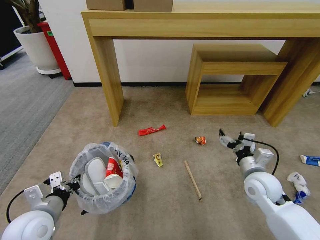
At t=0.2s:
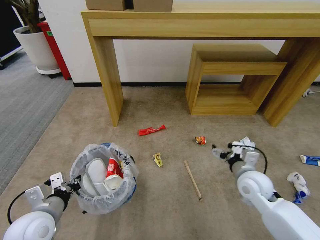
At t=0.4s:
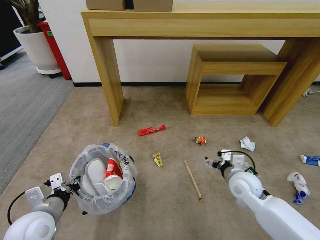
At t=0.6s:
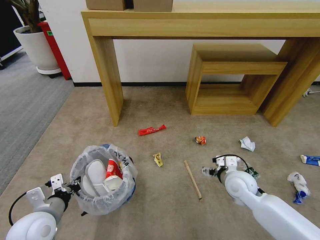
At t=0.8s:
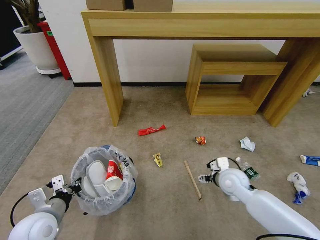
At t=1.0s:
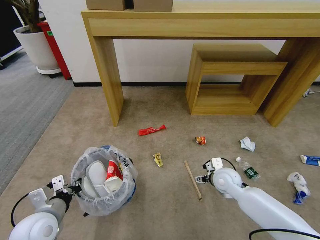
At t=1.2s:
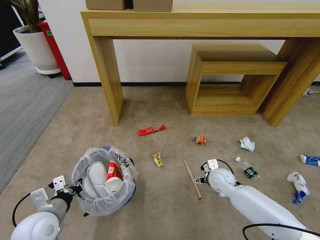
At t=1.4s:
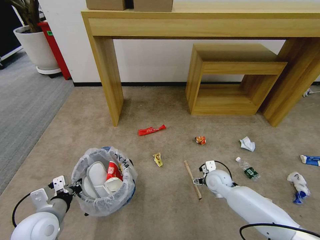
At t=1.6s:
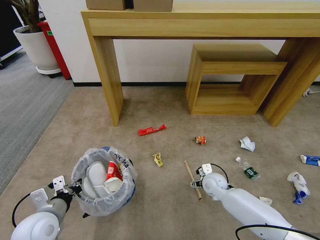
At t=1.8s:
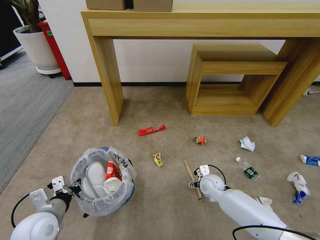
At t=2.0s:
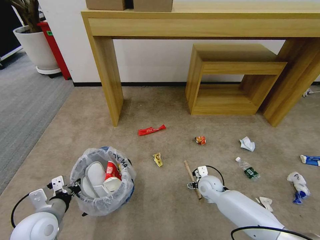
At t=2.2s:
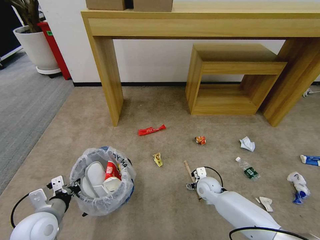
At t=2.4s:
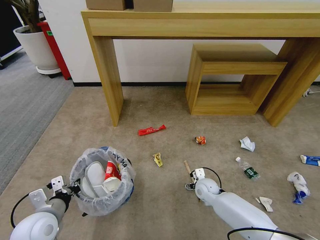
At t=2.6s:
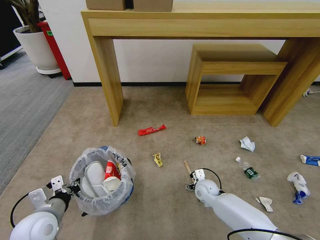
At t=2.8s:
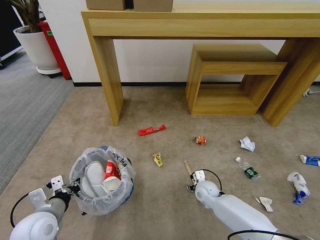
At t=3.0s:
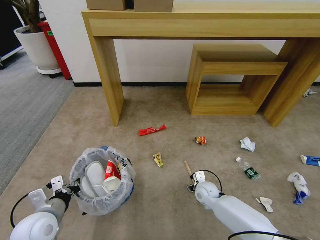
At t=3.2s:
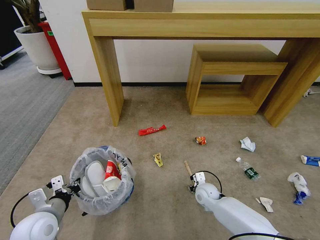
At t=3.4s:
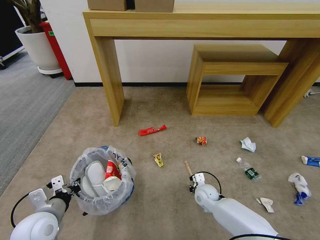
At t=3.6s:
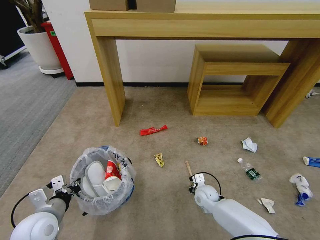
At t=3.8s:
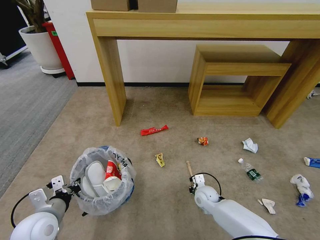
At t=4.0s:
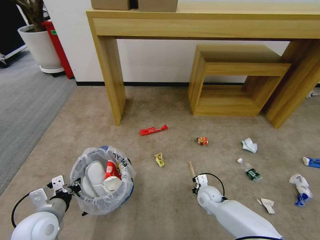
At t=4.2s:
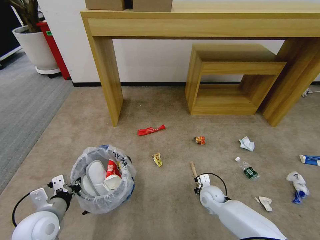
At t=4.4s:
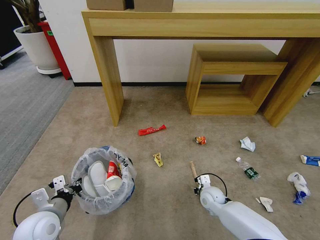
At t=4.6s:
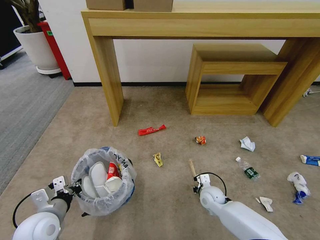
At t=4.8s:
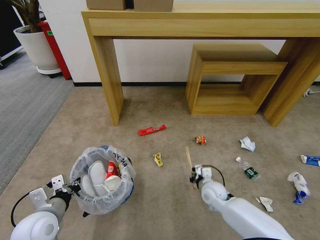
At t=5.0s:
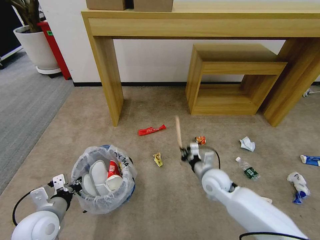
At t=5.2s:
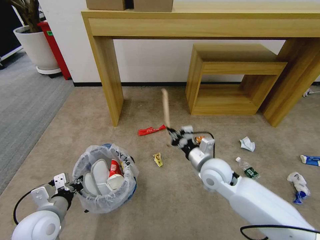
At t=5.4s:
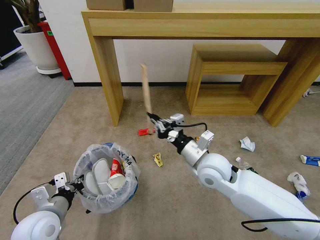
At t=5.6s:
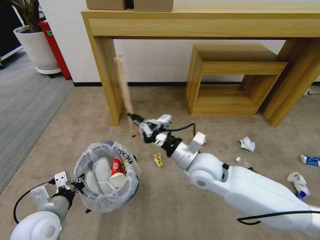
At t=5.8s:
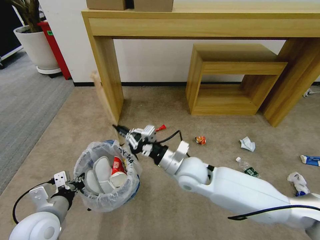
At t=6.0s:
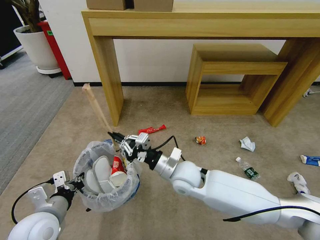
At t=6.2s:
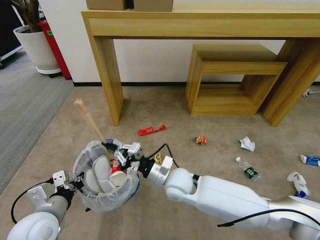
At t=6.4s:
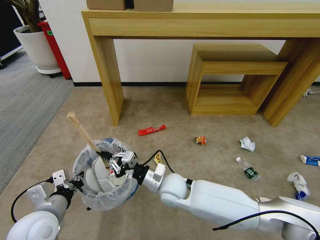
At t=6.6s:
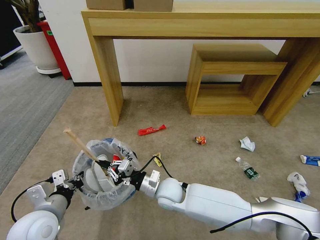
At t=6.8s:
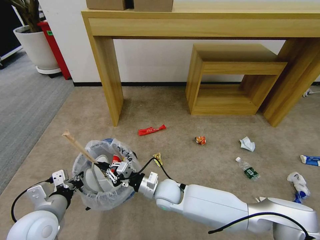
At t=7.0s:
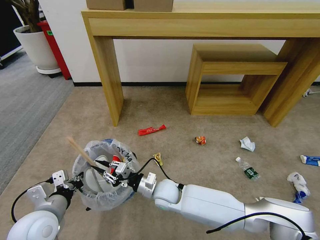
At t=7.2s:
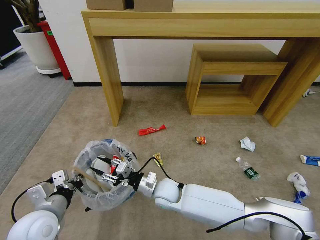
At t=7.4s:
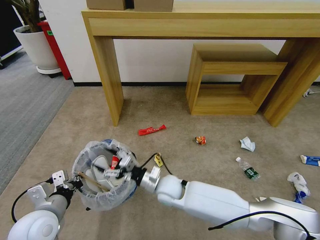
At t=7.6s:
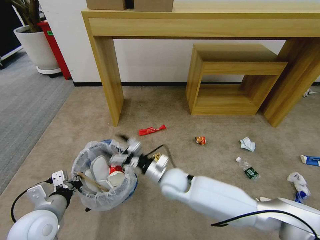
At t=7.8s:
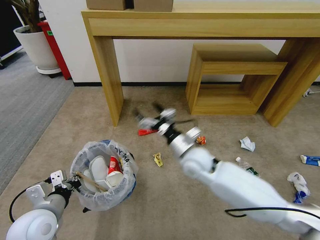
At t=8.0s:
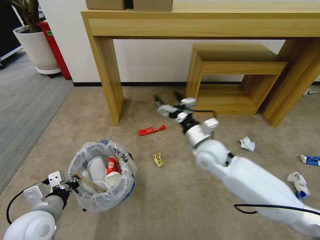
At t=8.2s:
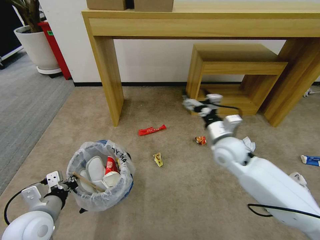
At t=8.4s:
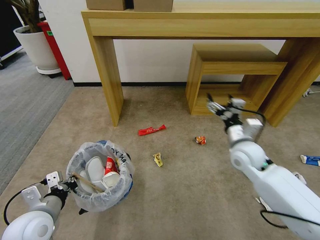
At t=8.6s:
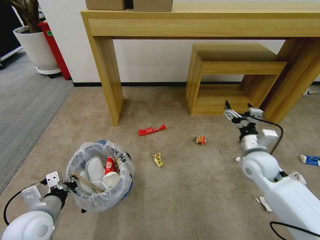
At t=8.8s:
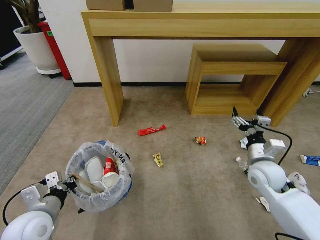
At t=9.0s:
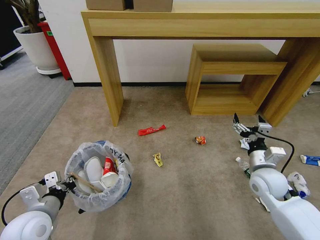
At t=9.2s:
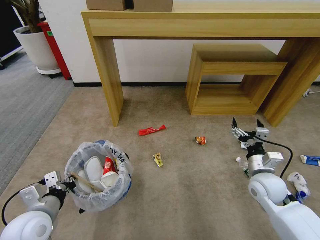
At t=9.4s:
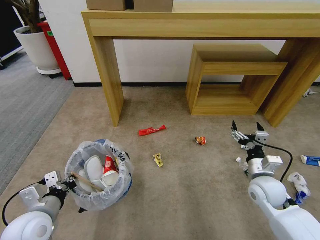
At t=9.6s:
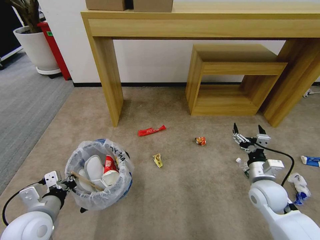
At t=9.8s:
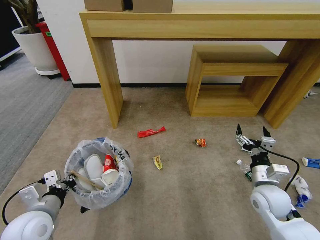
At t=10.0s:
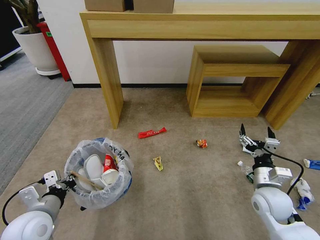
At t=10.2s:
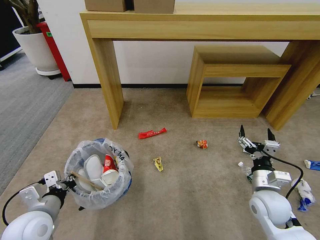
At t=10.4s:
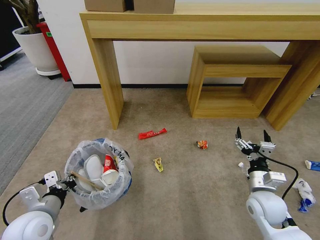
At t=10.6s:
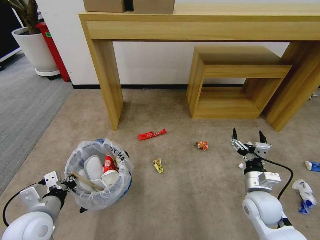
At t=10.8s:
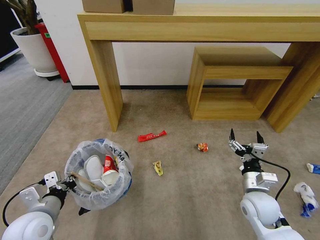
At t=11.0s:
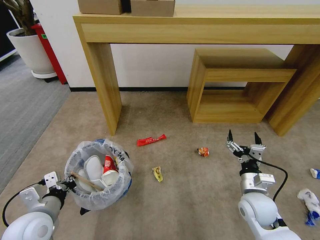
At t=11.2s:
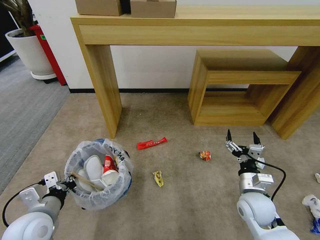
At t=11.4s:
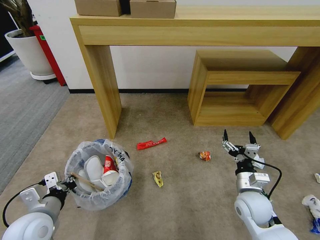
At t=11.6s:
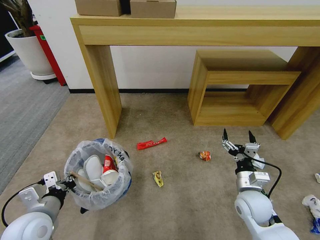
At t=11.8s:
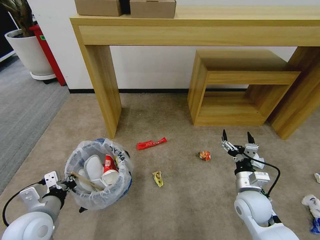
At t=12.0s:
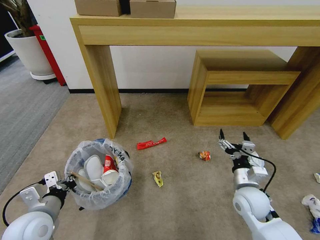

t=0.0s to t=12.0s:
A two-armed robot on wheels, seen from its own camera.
Task of the whole recording: Pick up the trash bin and place the garbage on the floor into it.
t=0.0s to t=1.6s: The right gripper is displaced downward, to the left and forward by approximately 20 cm.
t=1.6s to t=3.0s: The right gripper travels downward by roughly 5 cm.
t=3.0s to t=4.4s: The right gripper closes up.
t=4.4s to t=6.0s: The right gripper is displaced upward and to the left by approximately 25 cm.
t=6.0s to t=7.6s: The right gripper shifts approximately 5 cm downward, and opens.
t=7.6s to t=9.0s: The right gripper goes approximately 30 cm to the right.
t=9.0s to t=10.4s: The right gripper heads backward, covering about 5 cm.

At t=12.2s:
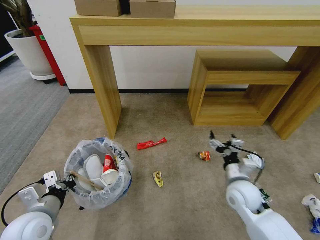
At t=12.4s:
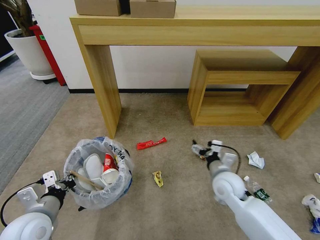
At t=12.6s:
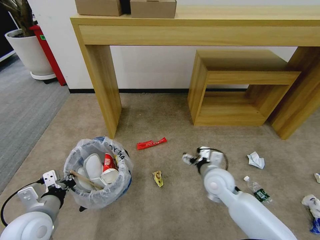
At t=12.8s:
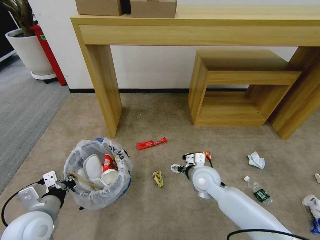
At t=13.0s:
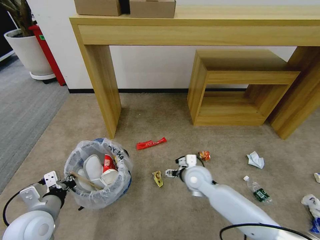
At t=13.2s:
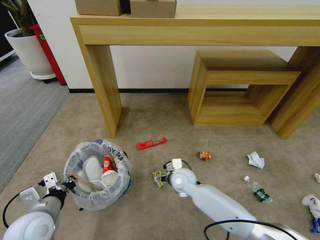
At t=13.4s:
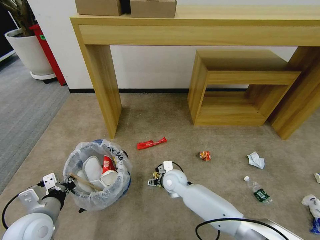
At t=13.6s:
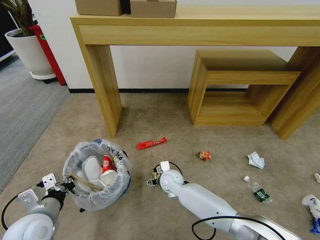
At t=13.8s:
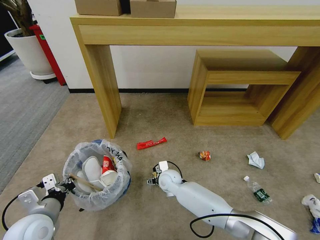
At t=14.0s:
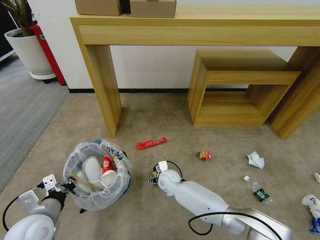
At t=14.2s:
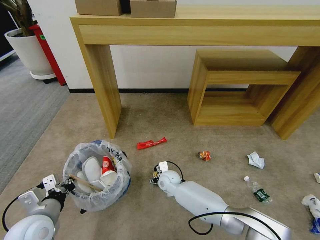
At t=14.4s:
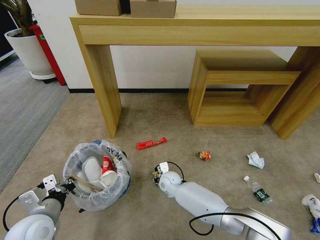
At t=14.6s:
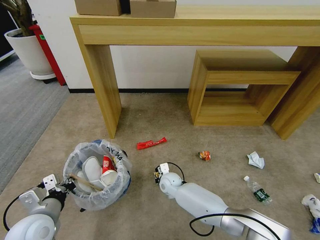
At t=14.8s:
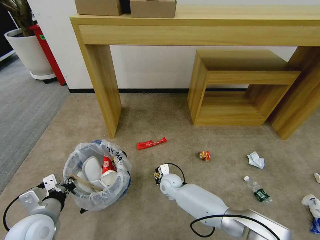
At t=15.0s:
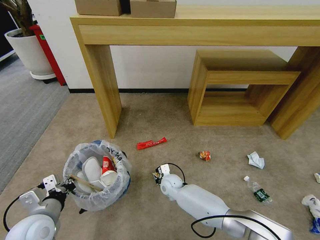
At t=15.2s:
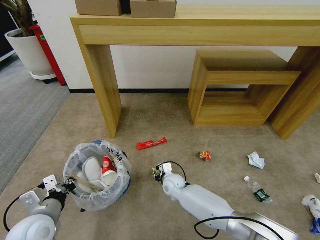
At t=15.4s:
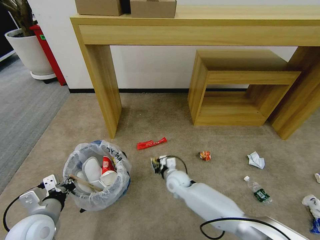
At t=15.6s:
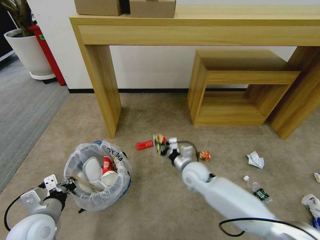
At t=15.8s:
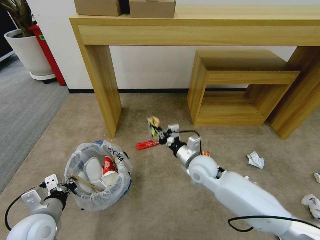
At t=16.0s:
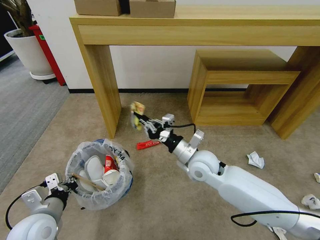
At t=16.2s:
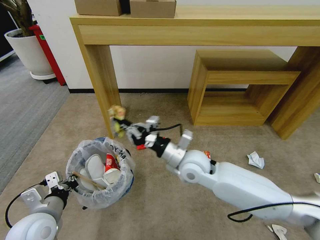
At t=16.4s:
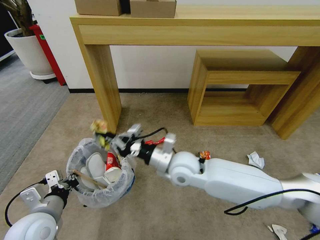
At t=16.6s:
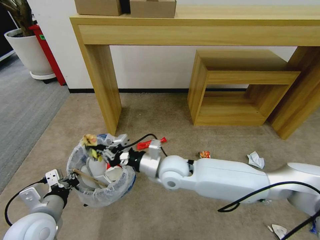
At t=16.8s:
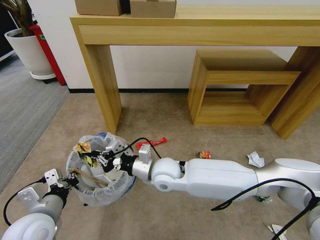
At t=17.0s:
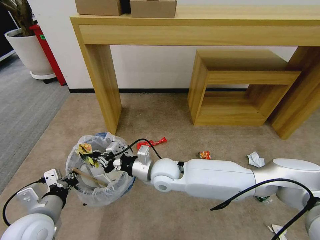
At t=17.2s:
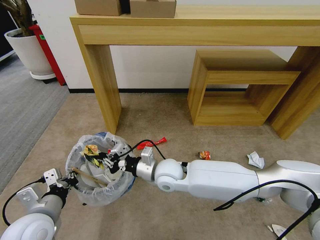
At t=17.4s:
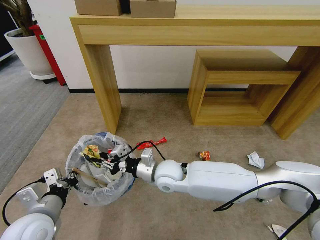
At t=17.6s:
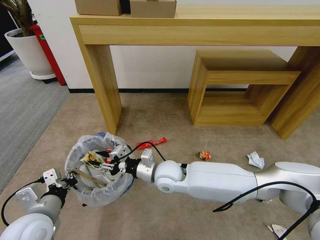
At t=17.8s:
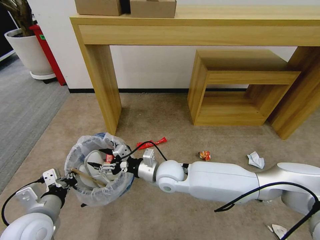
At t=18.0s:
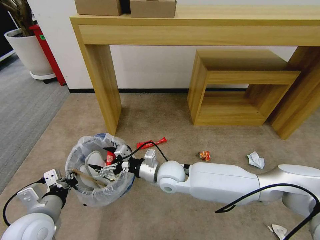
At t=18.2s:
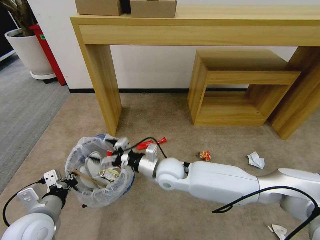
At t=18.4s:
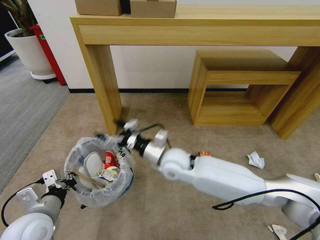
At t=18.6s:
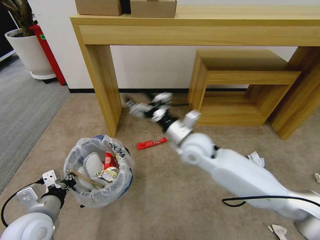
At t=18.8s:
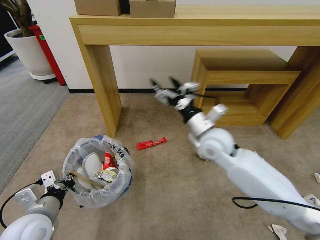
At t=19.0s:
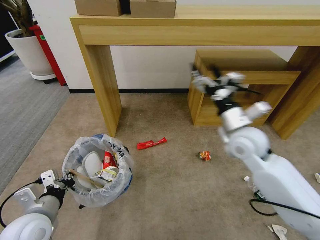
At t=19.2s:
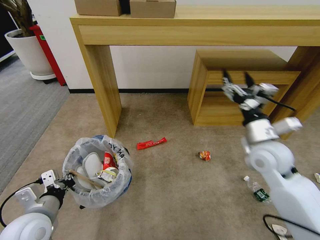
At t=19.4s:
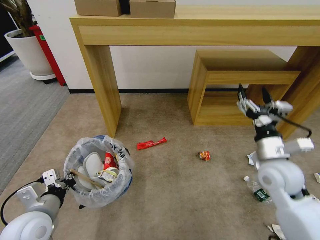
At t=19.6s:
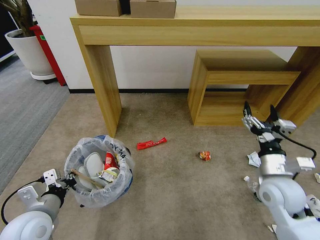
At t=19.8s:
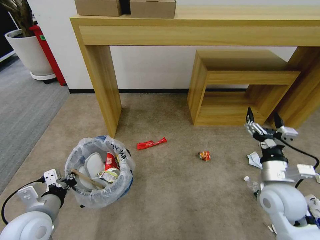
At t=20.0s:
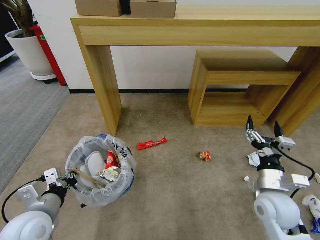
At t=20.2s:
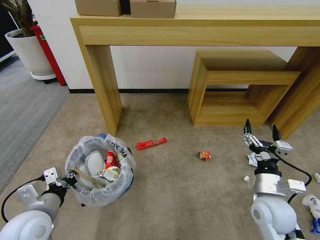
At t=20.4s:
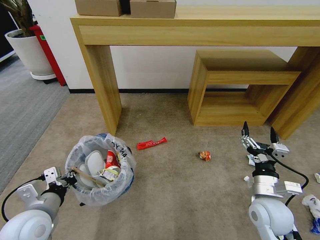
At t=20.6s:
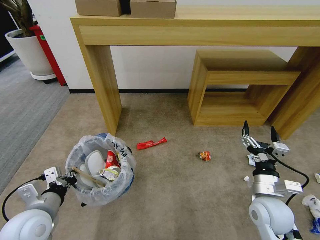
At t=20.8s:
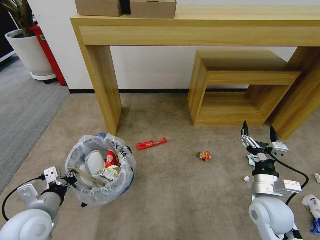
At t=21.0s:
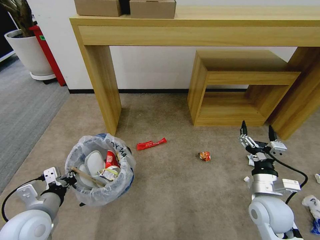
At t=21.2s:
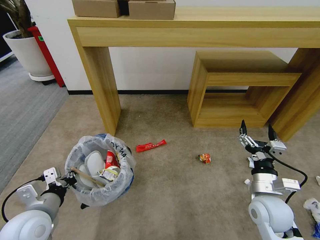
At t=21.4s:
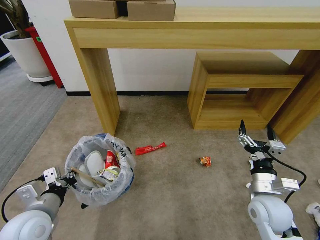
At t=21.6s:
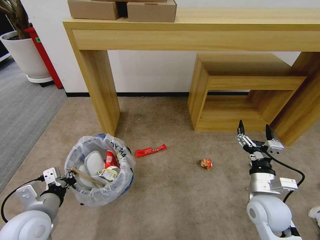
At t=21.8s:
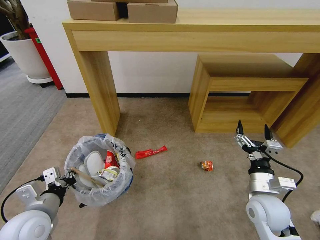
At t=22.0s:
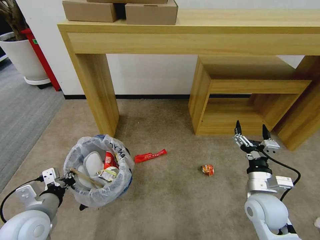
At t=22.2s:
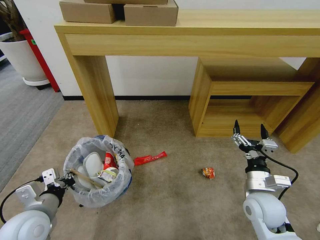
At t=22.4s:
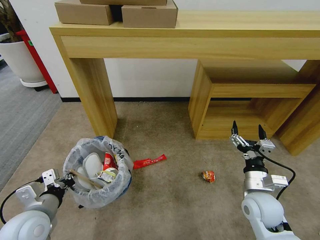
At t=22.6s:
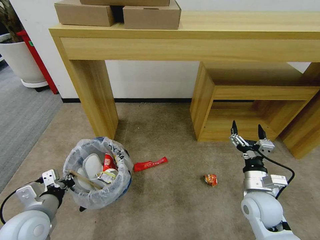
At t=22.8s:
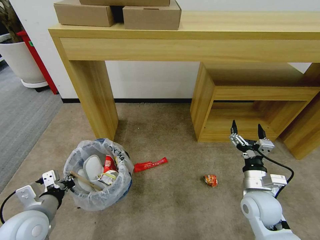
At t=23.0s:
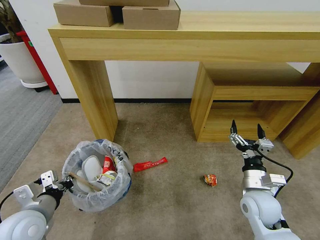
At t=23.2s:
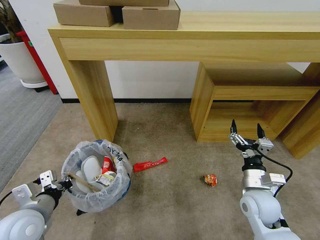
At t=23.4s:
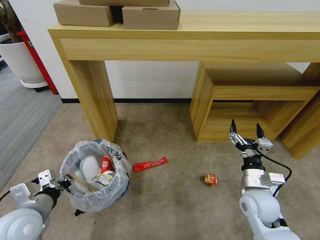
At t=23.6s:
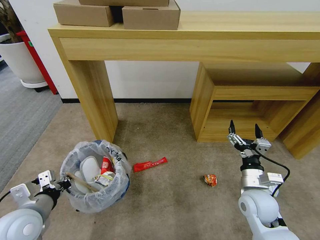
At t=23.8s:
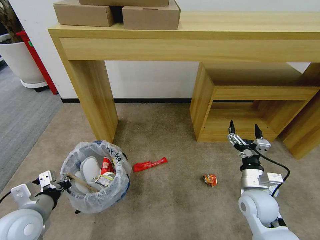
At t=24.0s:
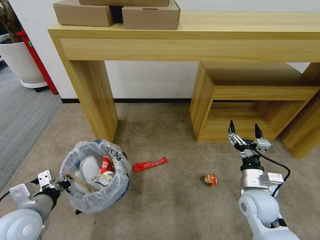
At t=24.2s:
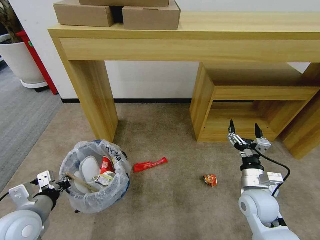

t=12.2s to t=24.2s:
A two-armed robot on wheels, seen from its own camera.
Task of the whole recording: Pick up the trash bin and place the garbage on the floor into it.
t=12.2s to t=13.8s: The right gripper moves to the left, downward and forward, approximately 30 cm.
t=13.8s to t=15.2s: The right gripper closes up.
t=15.2s to t=16.6s: The right gripper moves upward, roughly 20 cm.
t=16.6s to t=18.2s: The right gripper opens.
t=18.2s to t=19.8s: The right gripper goes approximately 30 cm to the right.
t=19.8s to t=21.2s: The grippers stay close to where they were, moving slightly.
t=22.6s to t=24.2s: The grippers make only small movements.
